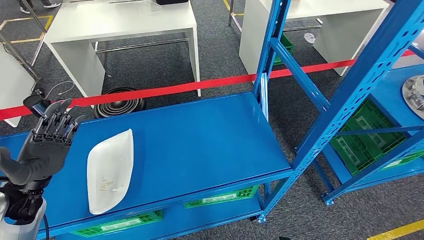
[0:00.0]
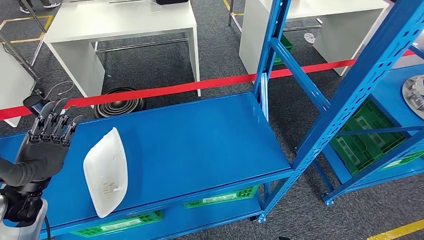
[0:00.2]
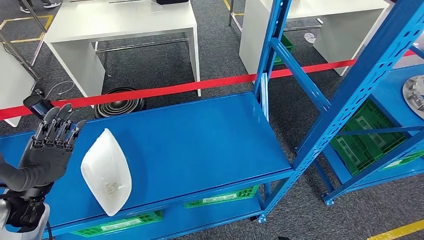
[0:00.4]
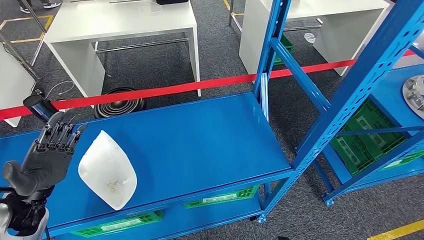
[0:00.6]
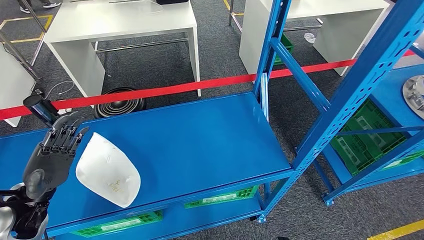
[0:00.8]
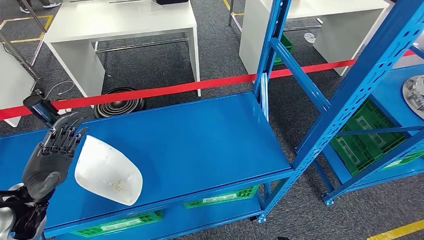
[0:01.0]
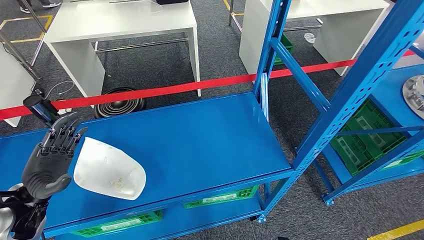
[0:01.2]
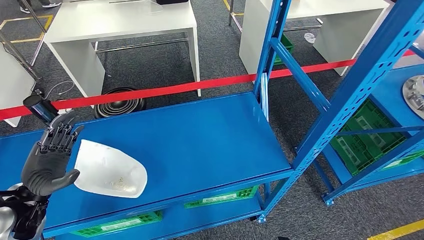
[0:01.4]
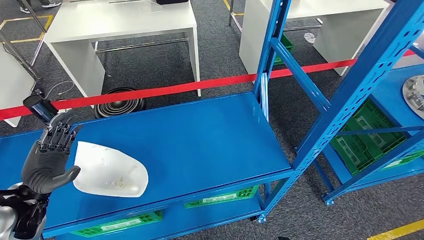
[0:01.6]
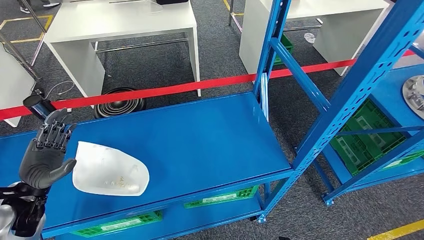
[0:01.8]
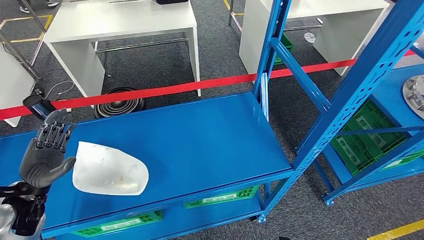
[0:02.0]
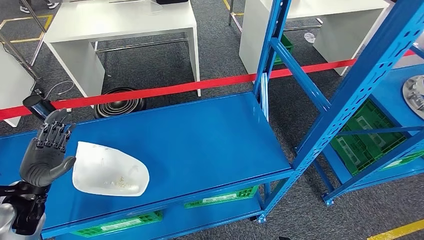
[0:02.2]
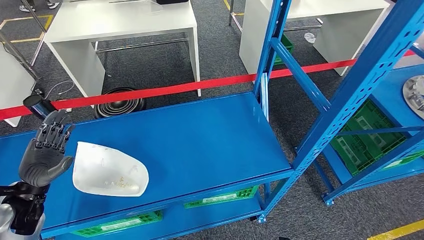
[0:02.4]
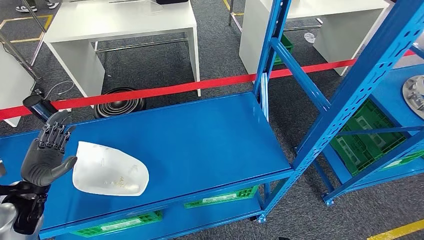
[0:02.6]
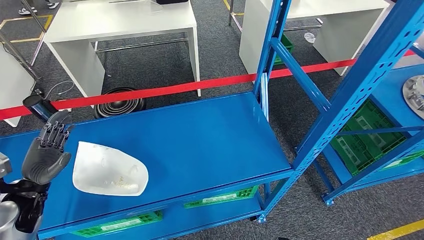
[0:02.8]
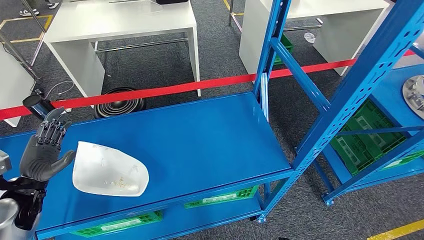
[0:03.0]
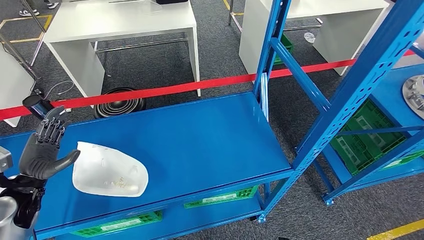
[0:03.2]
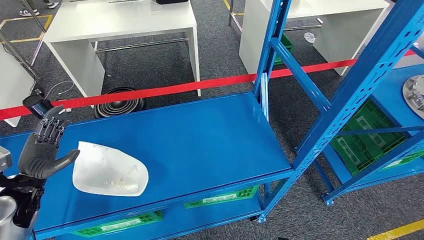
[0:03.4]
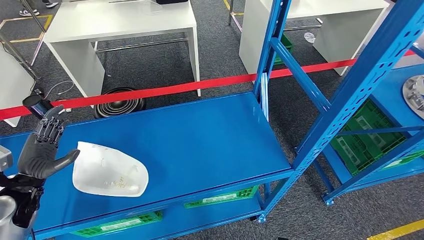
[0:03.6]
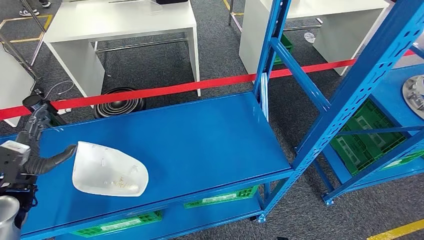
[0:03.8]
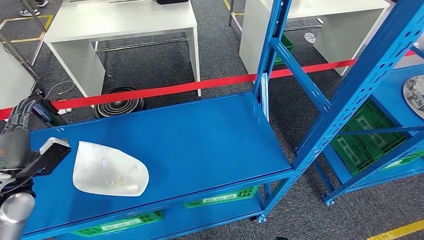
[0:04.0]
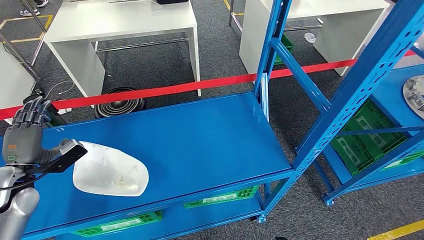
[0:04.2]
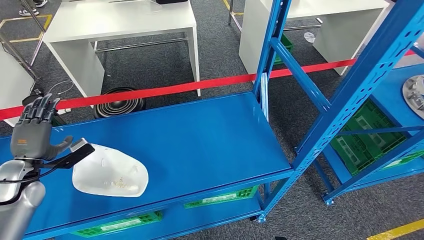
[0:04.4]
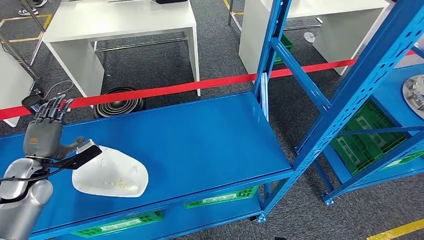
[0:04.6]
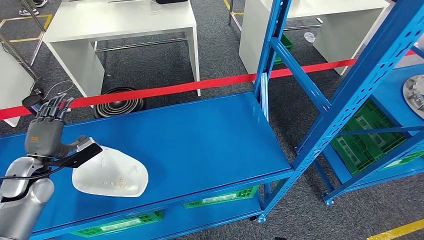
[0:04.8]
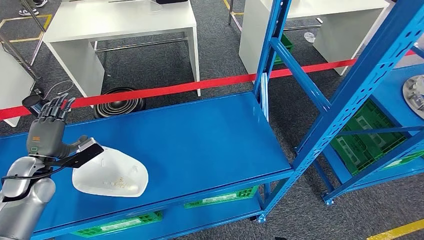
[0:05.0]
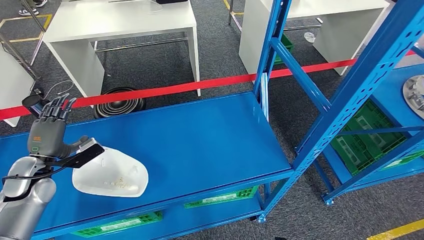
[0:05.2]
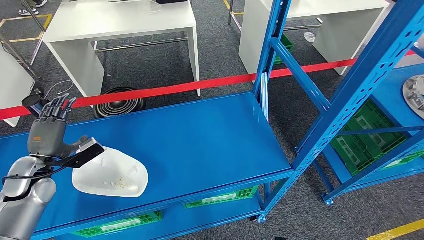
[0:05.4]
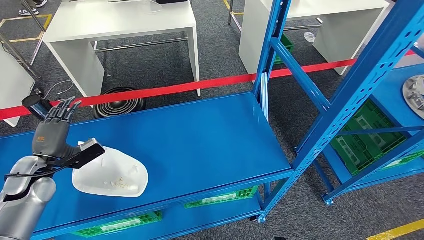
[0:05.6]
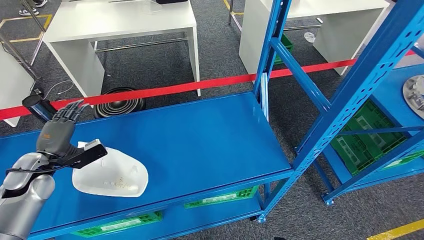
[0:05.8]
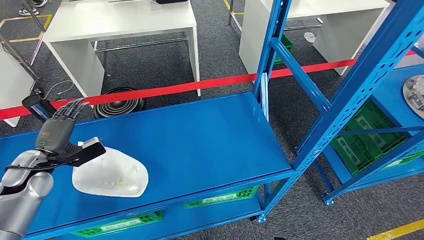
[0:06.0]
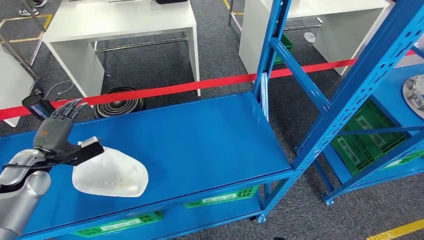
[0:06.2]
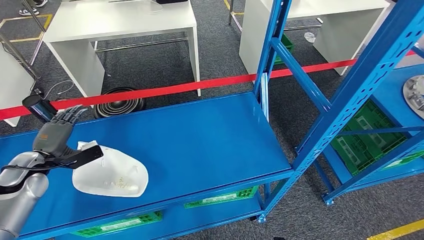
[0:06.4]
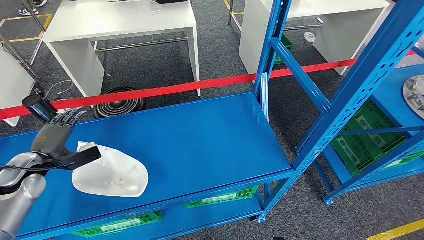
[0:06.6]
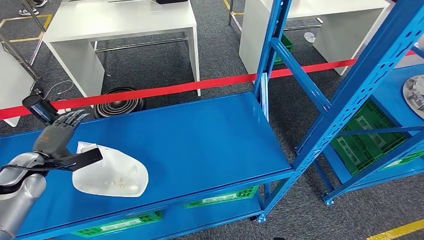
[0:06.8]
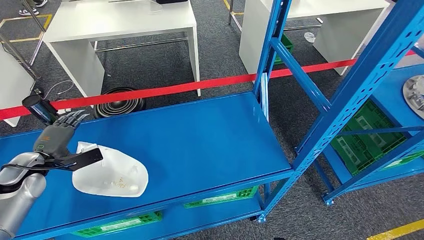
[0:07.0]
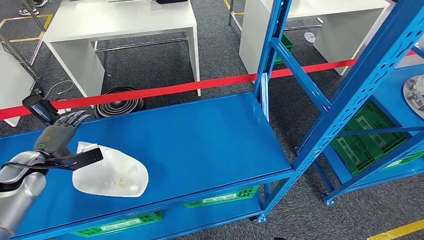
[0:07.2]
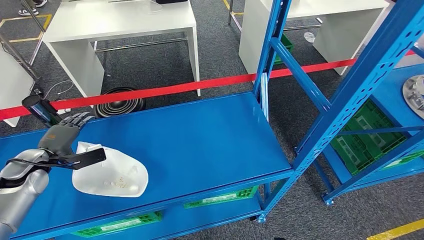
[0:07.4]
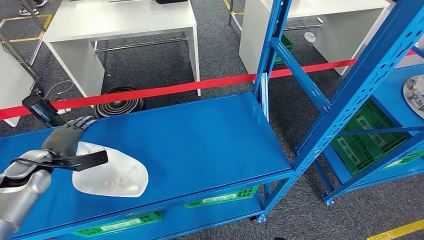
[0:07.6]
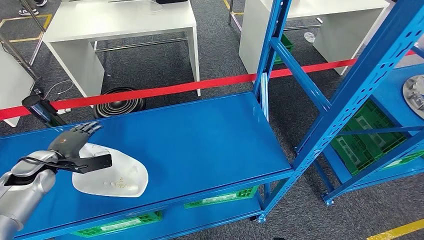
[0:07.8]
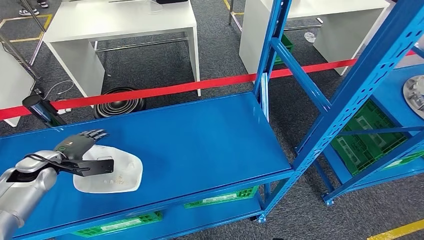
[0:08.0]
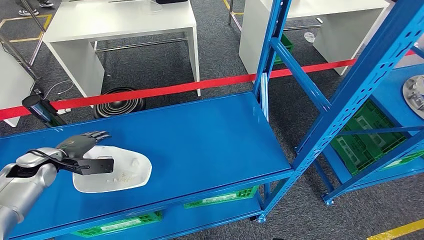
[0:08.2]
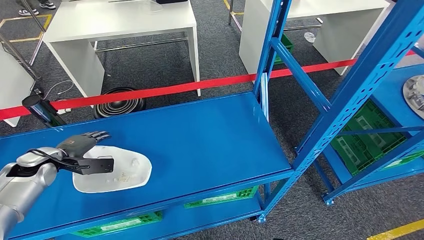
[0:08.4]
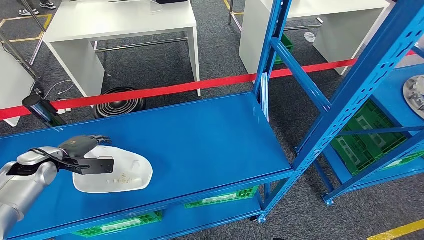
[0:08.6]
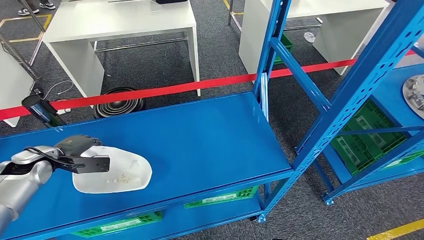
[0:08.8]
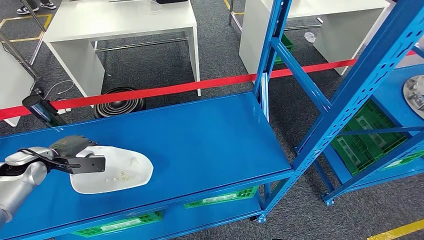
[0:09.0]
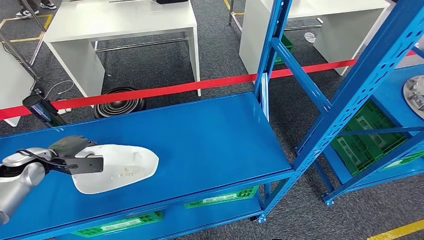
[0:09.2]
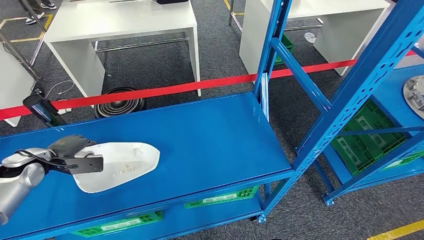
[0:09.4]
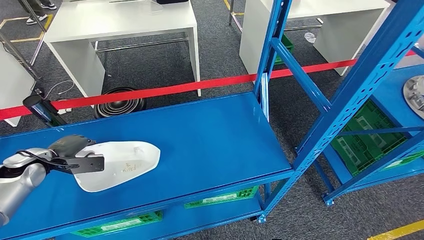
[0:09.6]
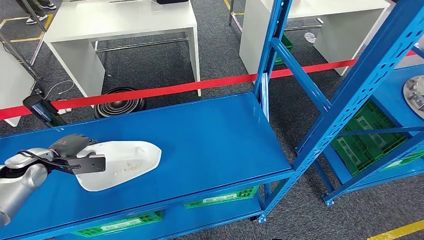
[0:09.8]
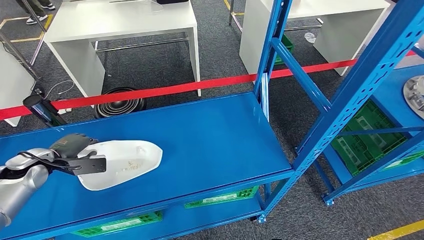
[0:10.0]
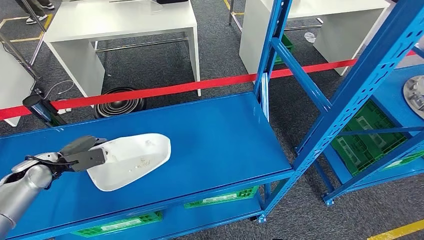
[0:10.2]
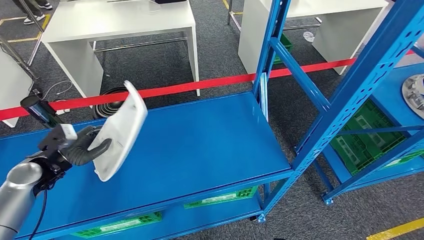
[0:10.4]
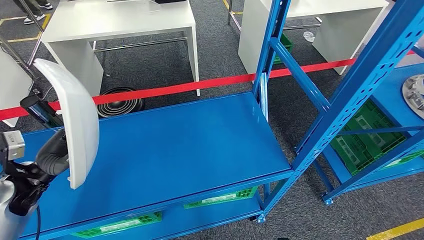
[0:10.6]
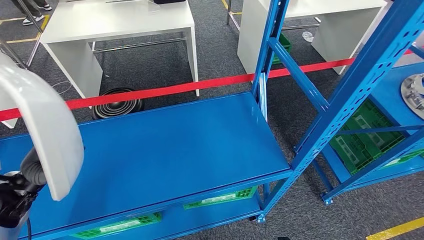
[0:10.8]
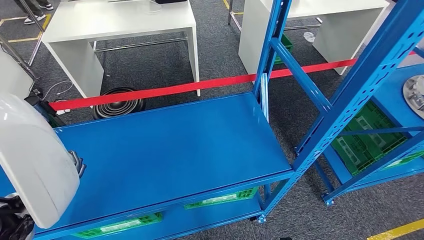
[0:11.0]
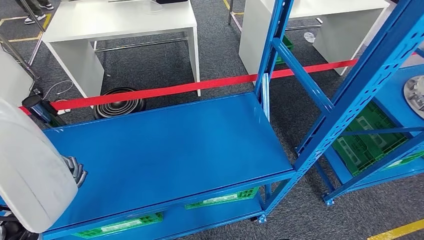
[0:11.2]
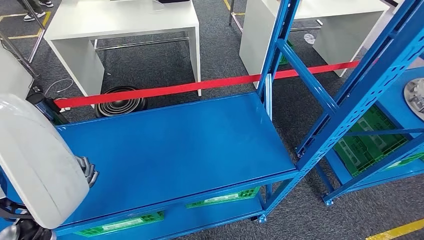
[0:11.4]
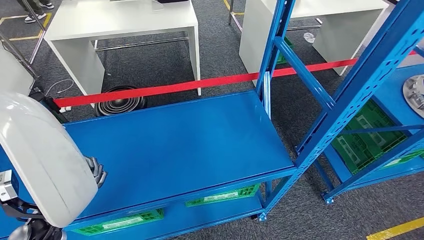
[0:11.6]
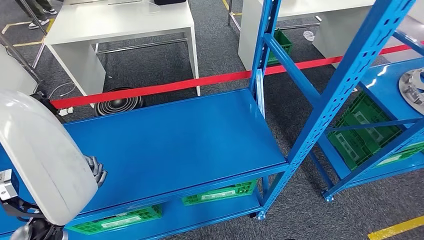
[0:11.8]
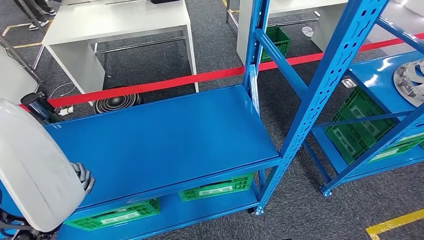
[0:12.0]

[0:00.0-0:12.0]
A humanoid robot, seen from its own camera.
Step, 0:00.0 to 0:11.2: Pick up the small component from the shelf.
0:00.0 to 0:01.6: The hands stay close to where they were, moving slightly.
0:01.6 to 0:03.0: There are only small adjustments of the hands.
0:03.0 to 0:04.4: The left hand moves approximately 5 cm.
0:04.4 to 0:06.0: The hands make only small movements.

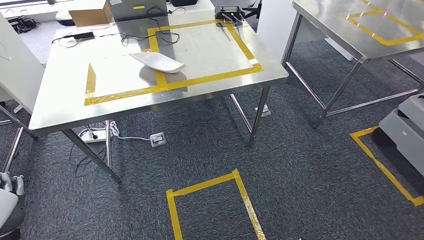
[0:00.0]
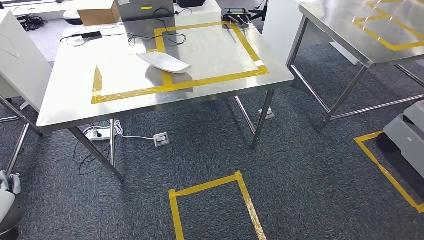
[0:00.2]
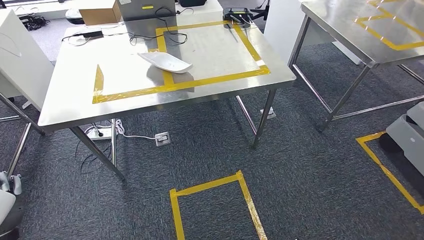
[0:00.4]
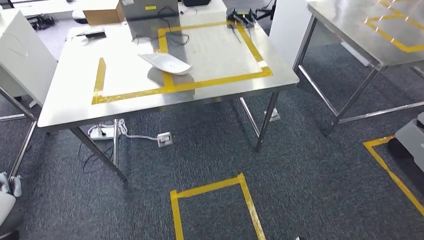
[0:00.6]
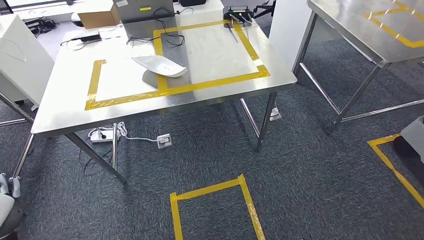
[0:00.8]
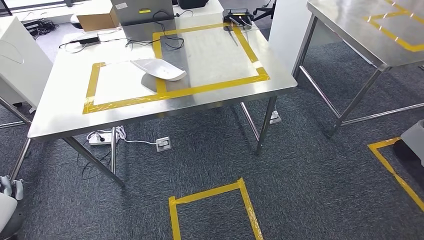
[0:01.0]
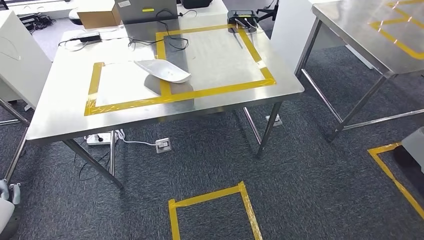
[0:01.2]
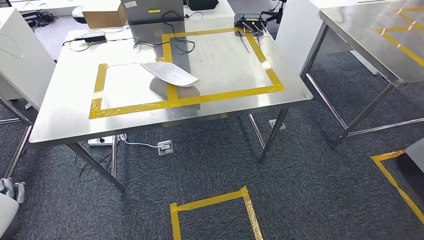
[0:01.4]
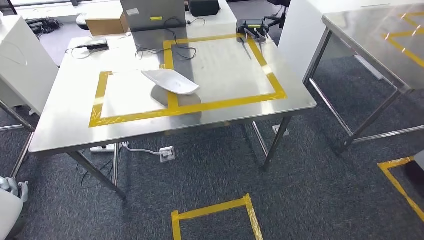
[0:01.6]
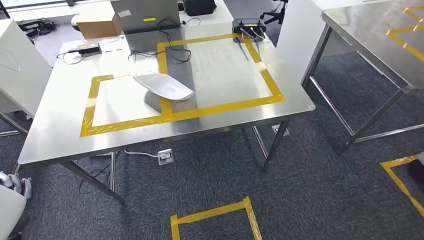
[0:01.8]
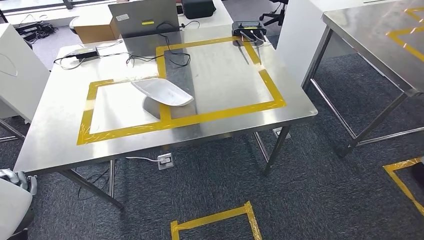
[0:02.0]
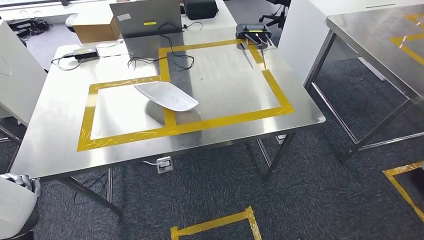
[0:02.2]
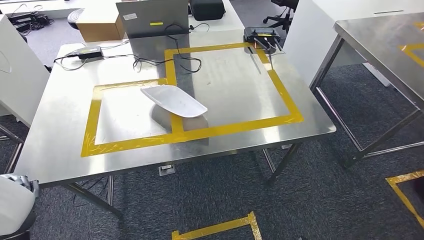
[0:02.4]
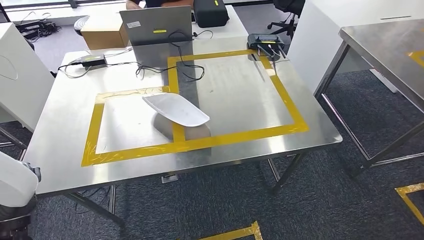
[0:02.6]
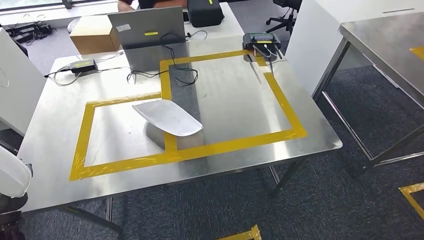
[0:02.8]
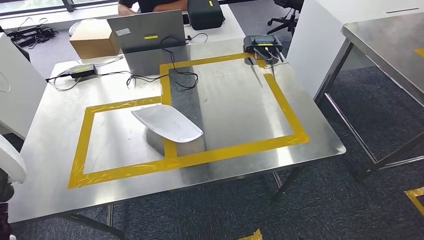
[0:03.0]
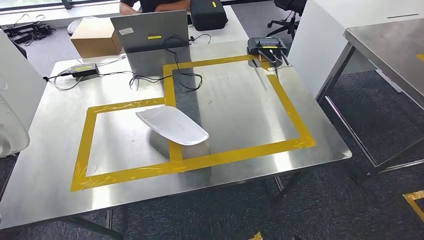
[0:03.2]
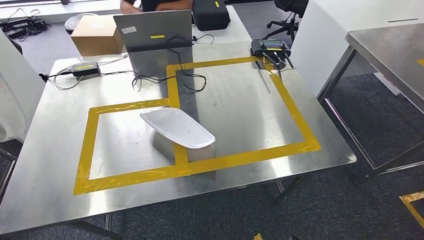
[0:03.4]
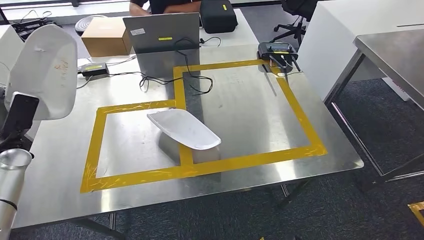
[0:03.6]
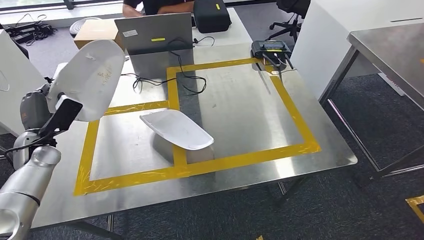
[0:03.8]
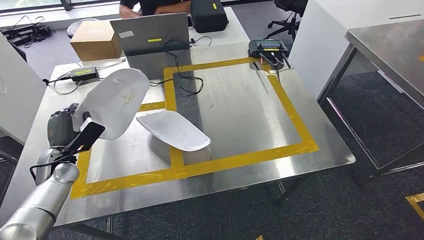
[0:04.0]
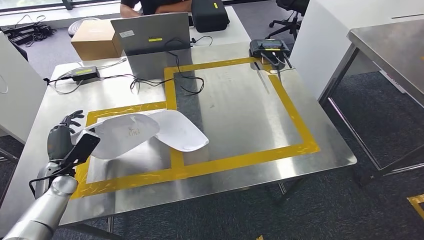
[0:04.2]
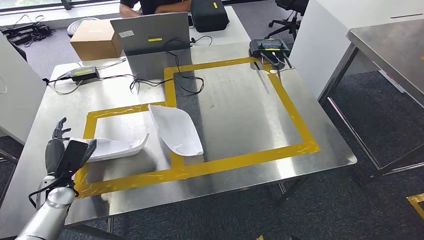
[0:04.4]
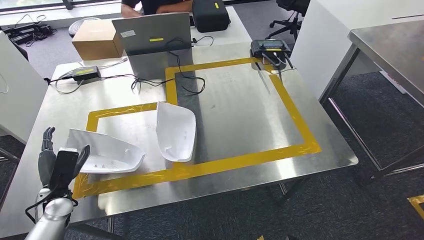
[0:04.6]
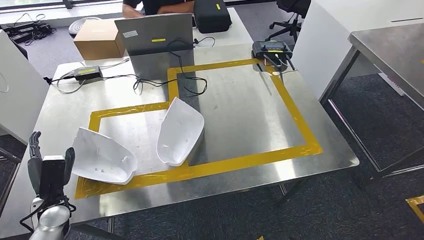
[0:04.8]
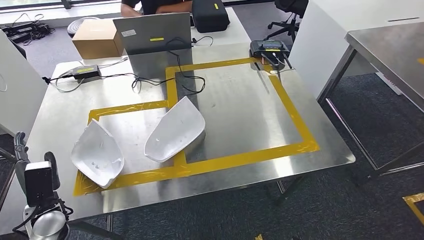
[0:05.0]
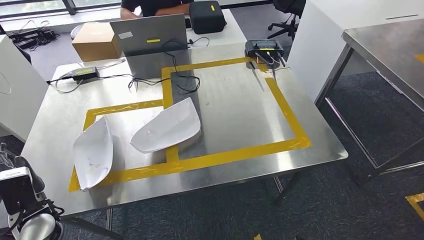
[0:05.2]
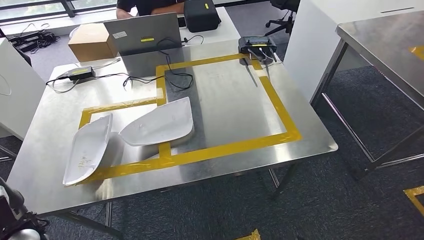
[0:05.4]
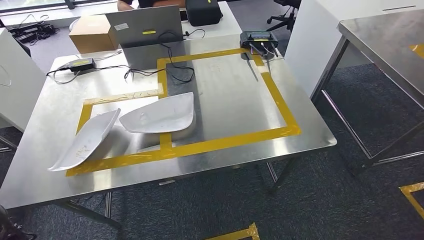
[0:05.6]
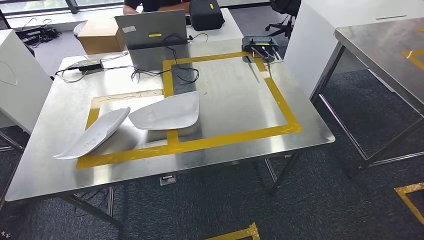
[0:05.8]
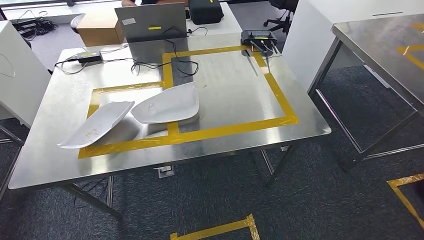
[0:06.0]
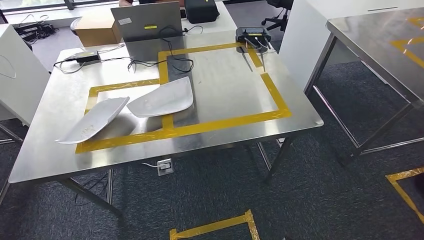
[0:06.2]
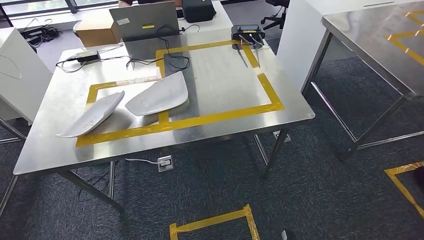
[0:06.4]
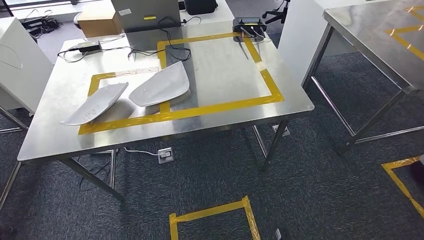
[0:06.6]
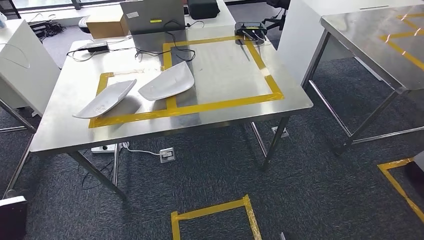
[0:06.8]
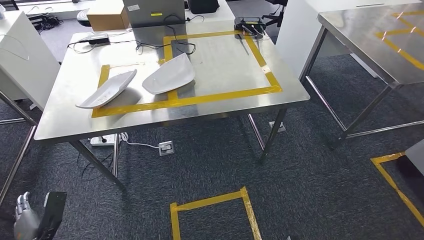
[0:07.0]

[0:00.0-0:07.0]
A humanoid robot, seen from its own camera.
Step, 0:00.6 to 0:05.4: Insert the small component into the corresponding slot on the workbench.
